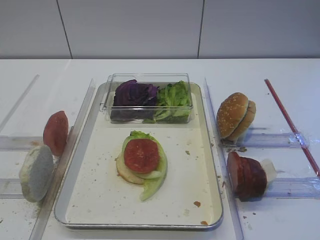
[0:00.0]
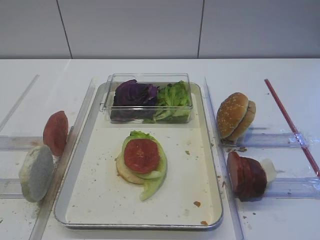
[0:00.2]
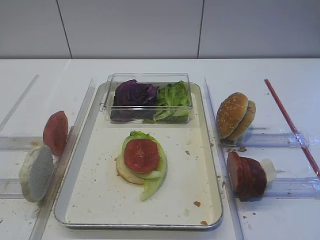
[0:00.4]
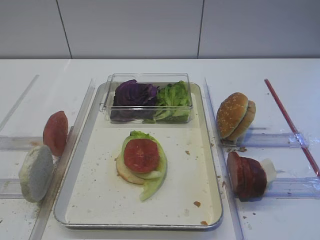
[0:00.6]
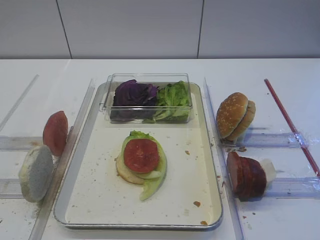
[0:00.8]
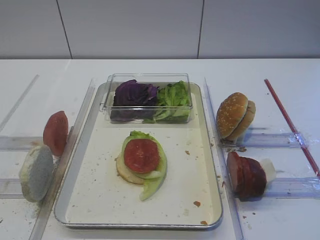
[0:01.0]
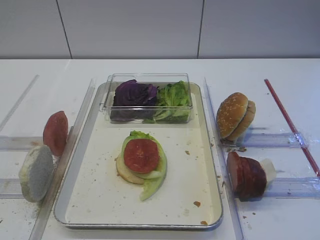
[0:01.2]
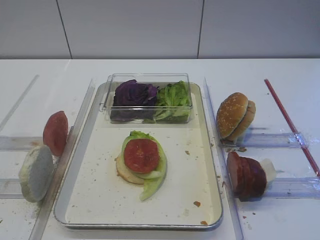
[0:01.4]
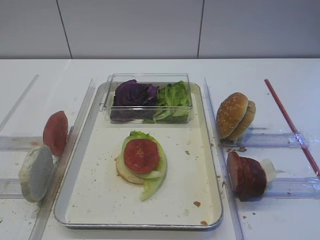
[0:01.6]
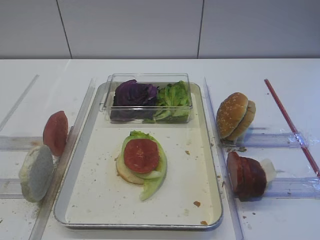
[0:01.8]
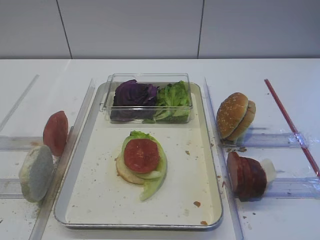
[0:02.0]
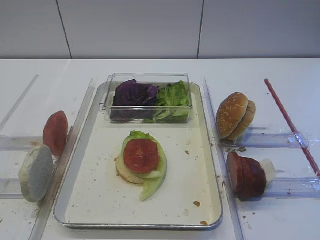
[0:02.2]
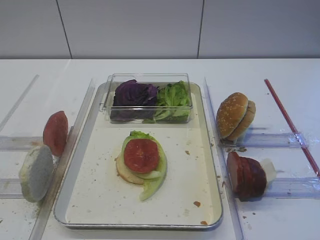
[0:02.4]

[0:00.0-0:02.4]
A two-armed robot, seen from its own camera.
0:01.2 to 0:02.4: Both grippers stay put.
